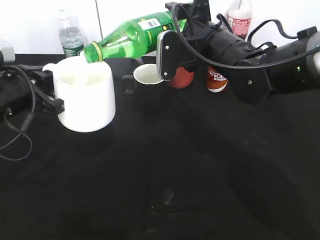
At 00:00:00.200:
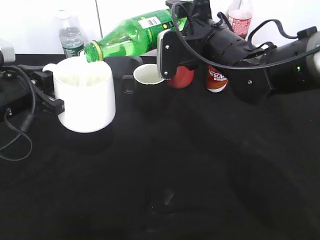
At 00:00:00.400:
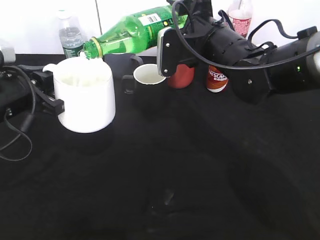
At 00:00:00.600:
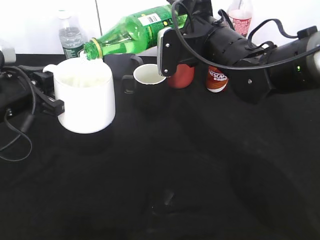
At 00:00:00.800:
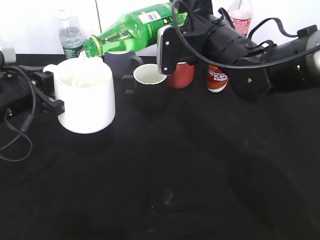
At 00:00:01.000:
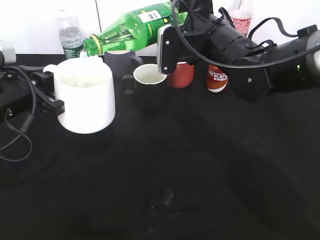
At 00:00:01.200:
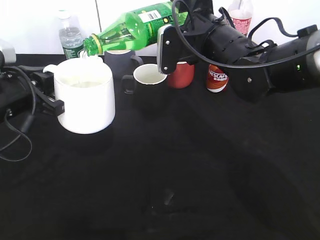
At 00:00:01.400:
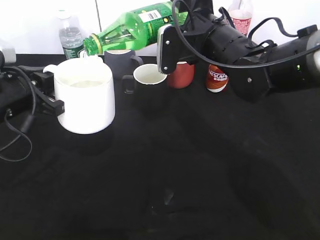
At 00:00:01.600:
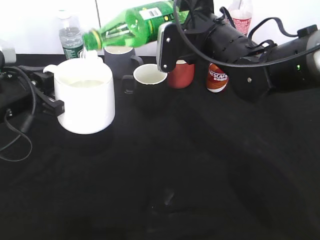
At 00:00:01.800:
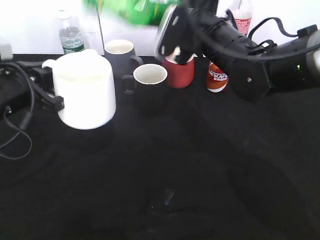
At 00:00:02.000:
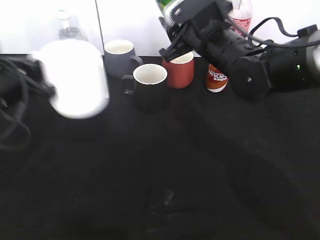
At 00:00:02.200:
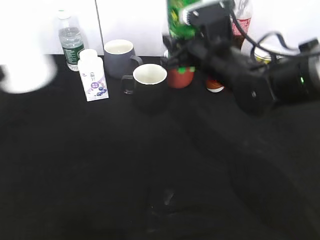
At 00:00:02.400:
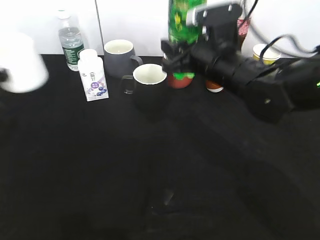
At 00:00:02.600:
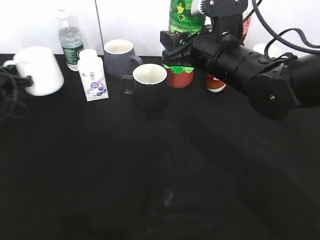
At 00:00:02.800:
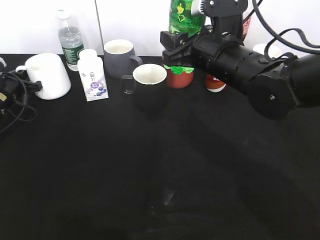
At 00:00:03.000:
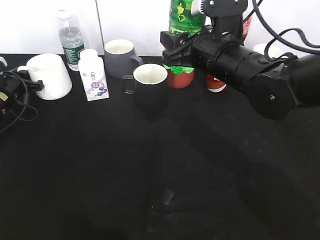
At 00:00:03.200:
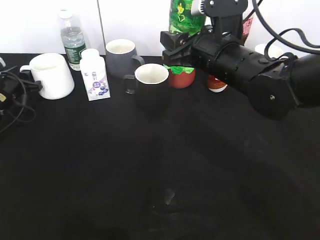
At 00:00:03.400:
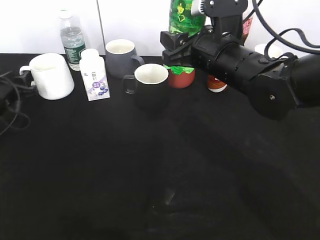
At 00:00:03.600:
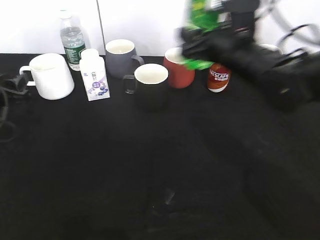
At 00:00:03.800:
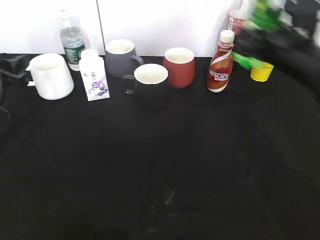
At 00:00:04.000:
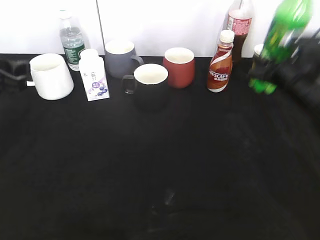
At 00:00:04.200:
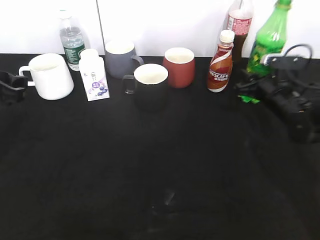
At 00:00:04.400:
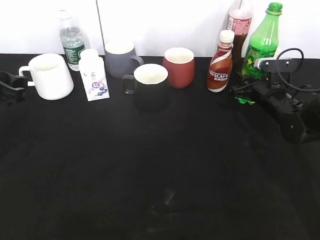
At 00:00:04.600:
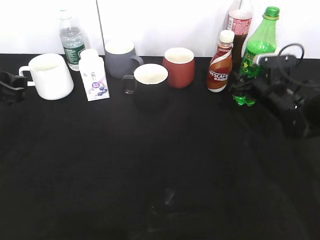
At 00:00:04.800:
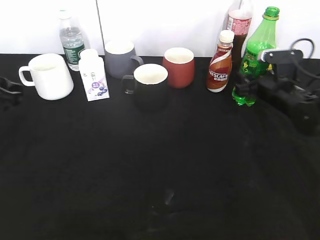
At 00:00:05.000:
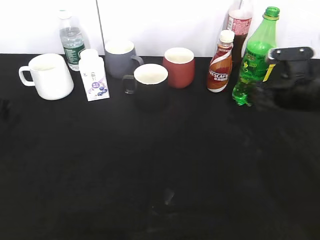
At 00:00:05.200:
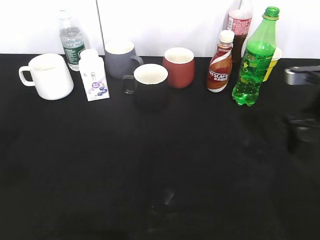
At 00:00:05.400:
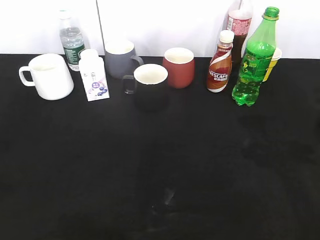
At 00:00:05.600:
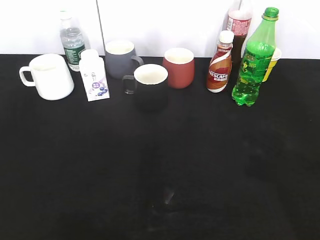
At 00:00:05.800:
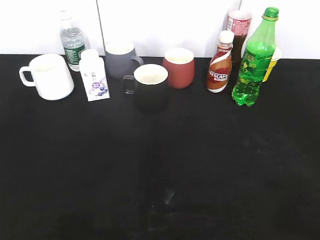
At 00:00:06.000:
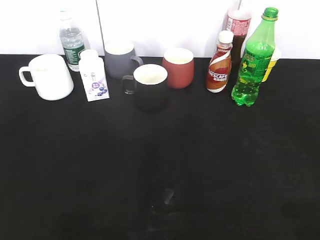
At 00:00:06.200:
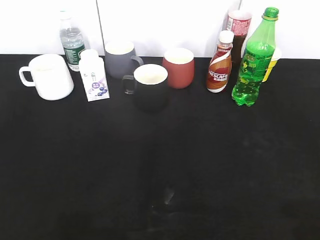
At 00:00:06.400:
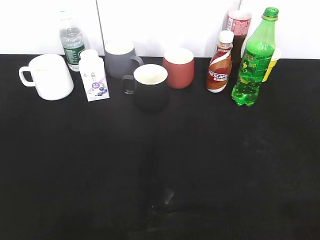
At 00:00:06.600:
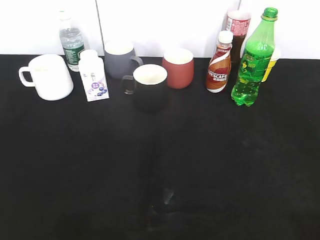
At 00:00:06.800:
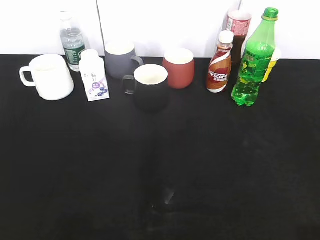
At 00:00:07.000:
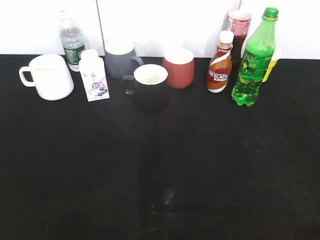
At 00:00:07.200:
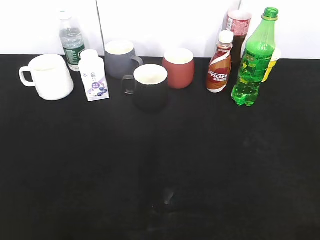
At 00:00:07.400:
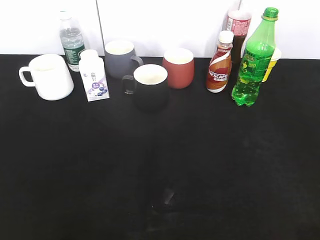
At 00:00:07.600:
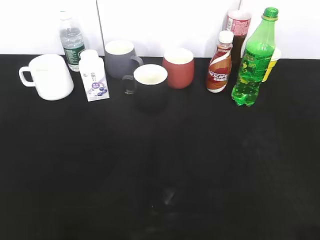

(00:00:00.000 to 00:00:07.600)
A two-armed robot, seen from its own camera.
Step, 00:00:02.000 - 00:00:03.400: Place the white cup on the table with left gripper.
Step, 00:00:03.600 - 00:00:04.800: Place the sprite bottle on the table with right gripper.
00:00:00.000 - 00:00:01.600: The two grippers keep their place.
00:00:01.600 - 00:00:03.000: The left gripper heads forward, downward and to the left, covering about 25 cm, and opens up.
00:00:03.000 - 00:00:04.600: The left gripper shifts approximately 25 cm backward and upward. The right gripper heads to the right, downward and forward, covering some 20 cm, and opens its fingers.
00:00:04.600 - 00:00:06.000: The right gripper goes approximately 40 cm backward and upward; the left gripper shifts approximately 25 cm backward.
